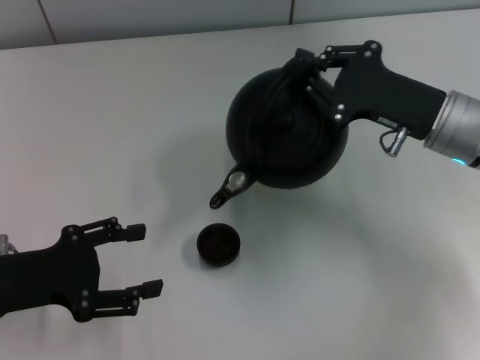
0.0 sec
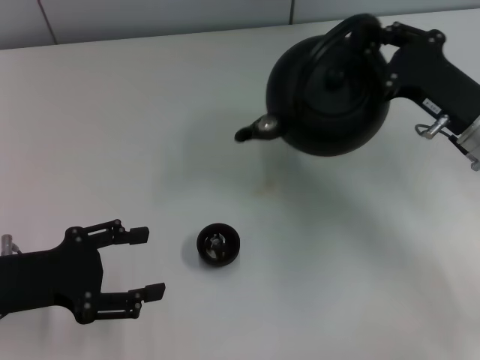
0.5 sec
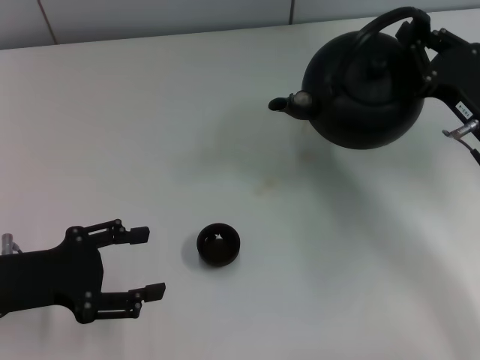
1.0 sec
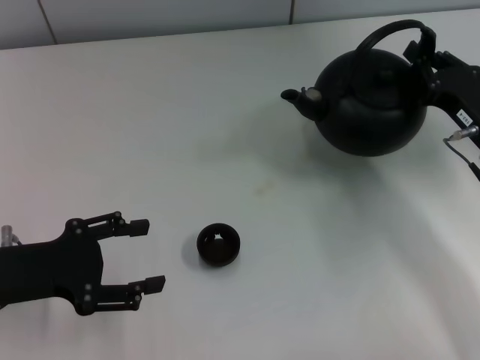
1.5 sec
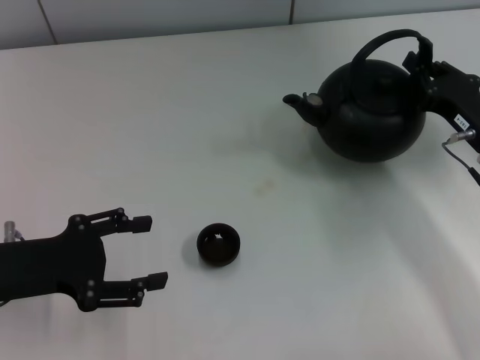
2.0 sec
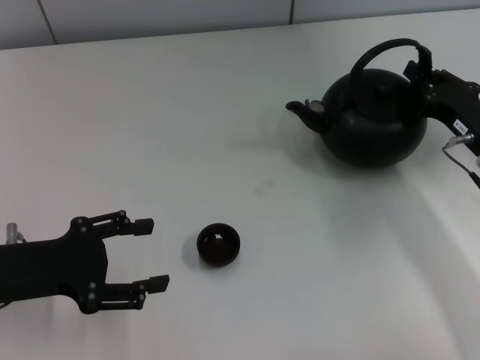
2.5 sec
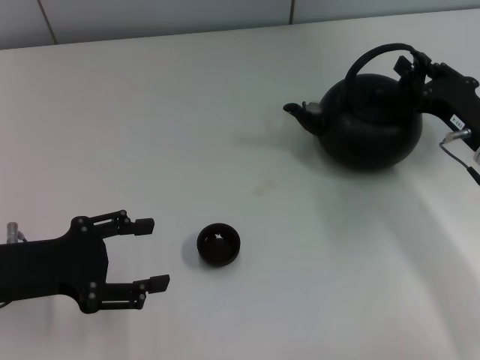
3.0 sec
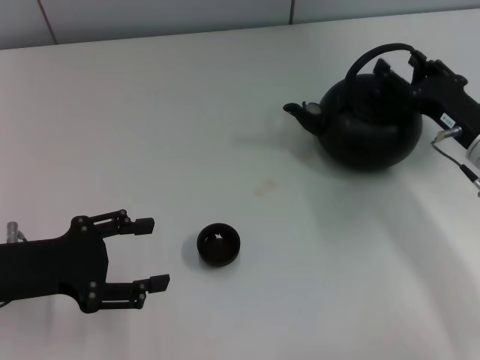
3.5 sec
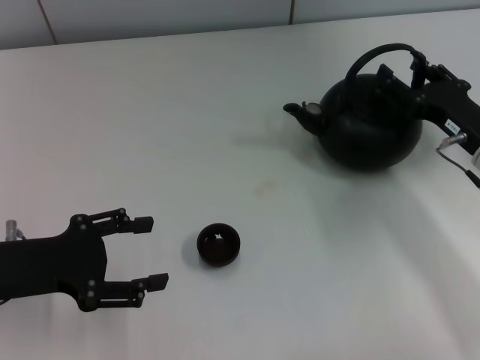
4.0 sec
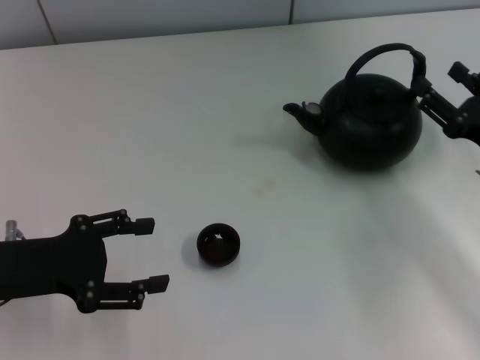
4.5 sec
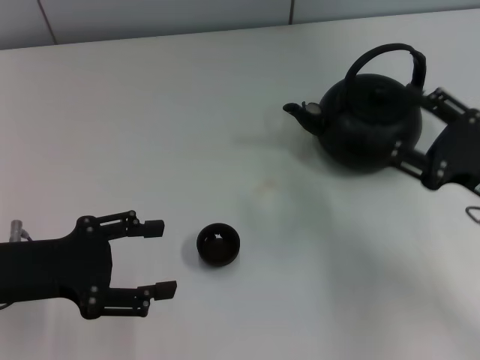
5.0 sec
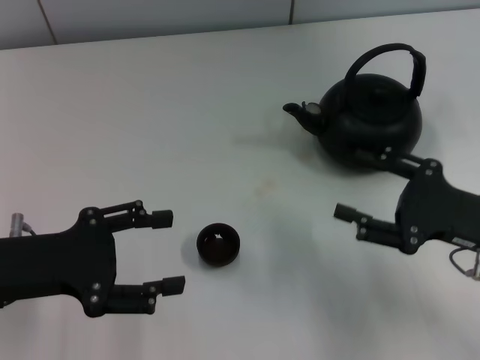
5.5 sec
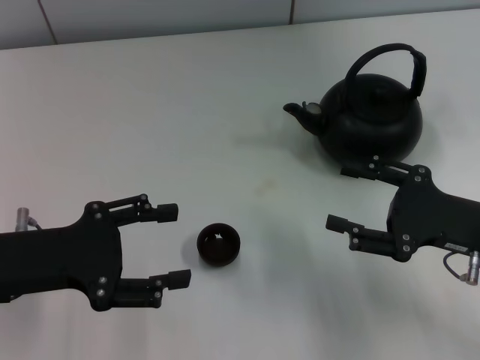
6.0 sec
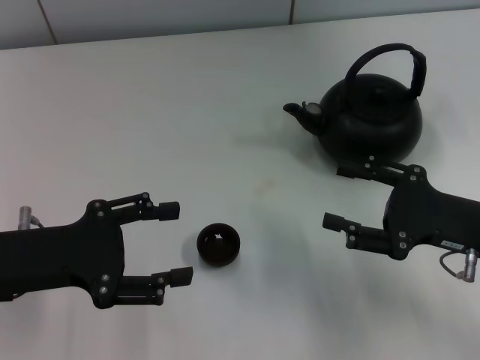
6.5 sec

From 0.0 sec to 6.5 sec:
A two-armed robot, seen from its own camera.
Task of the whole recording: Grasp the handle of the teapot with one hand and pour tea into the teacup.
Step, from 0.5 sec to 4.5 sec: Put down the teapot with the right gripper.
From 0.0 sec to 2.0 sec: The right gripper moves to the right and downward, approximately 10 cm.
From 2.0 sec to 4.5 sec: The right gripper opens up.
From 4.5 sec to 6.5 sec: The right gripper changes place by some 5 cm.
